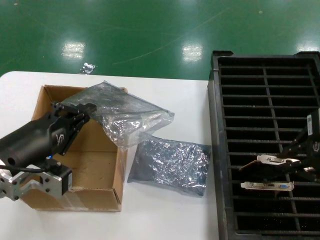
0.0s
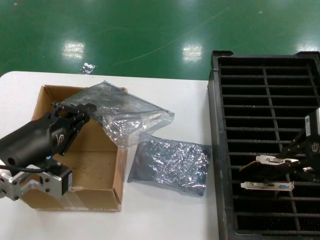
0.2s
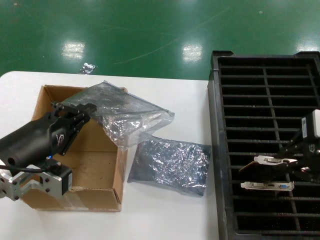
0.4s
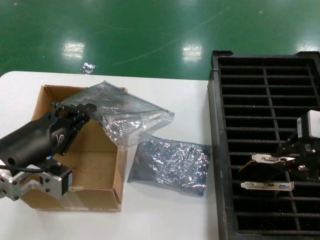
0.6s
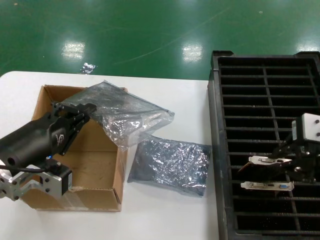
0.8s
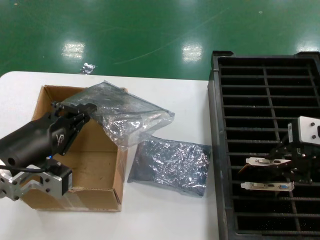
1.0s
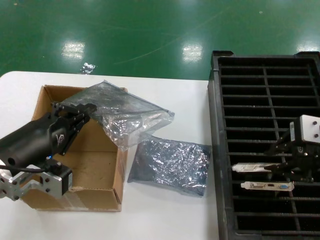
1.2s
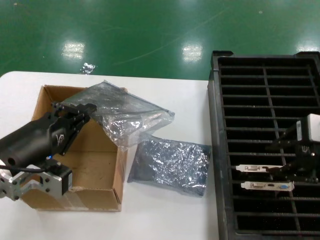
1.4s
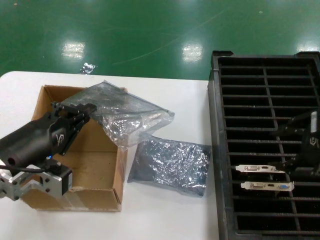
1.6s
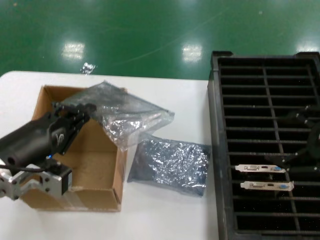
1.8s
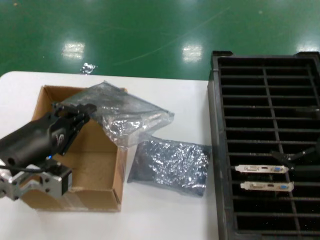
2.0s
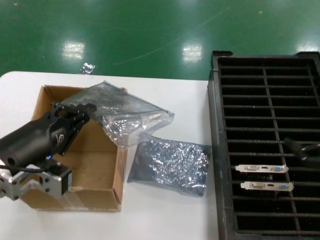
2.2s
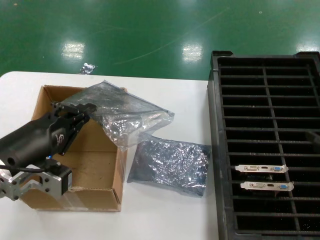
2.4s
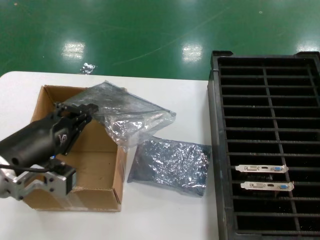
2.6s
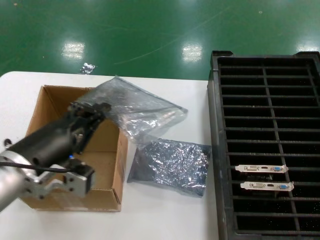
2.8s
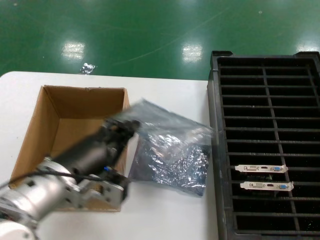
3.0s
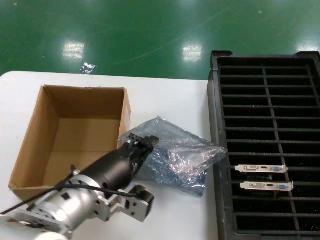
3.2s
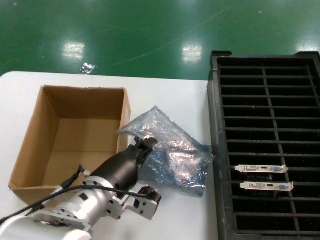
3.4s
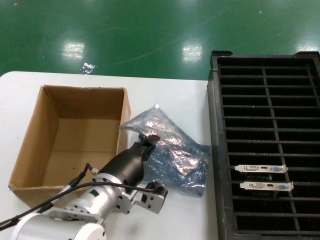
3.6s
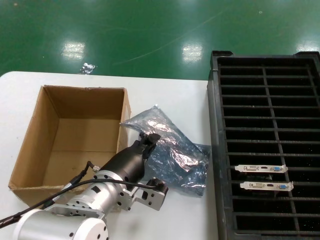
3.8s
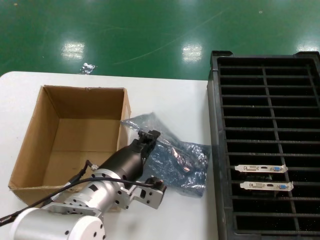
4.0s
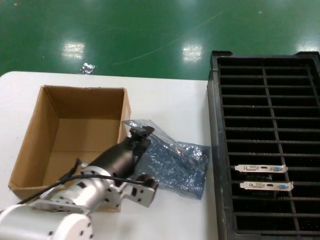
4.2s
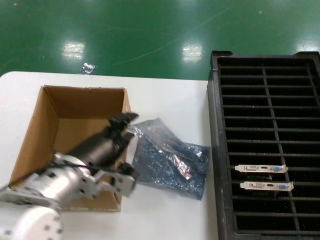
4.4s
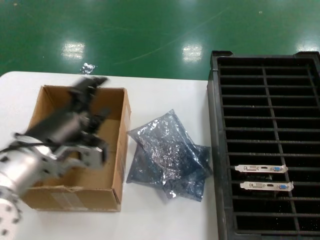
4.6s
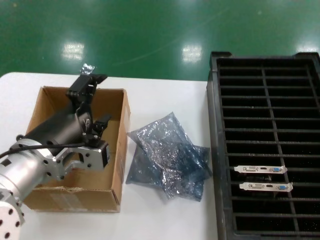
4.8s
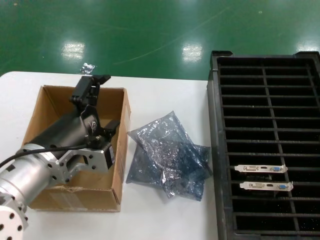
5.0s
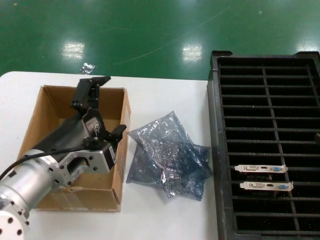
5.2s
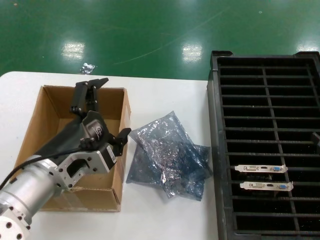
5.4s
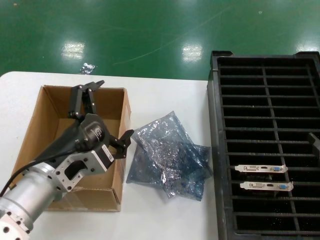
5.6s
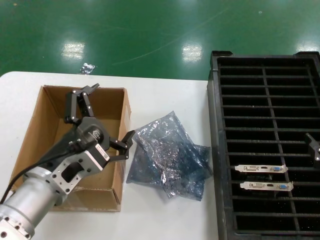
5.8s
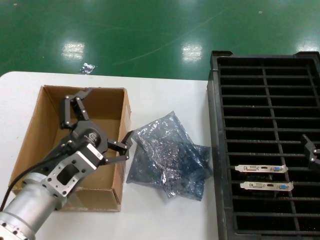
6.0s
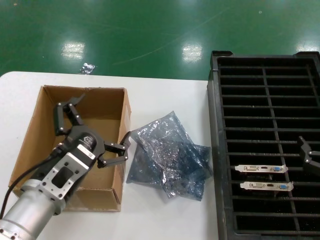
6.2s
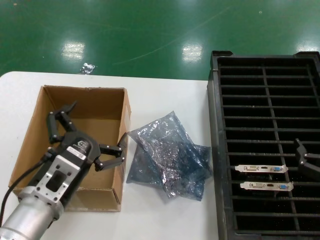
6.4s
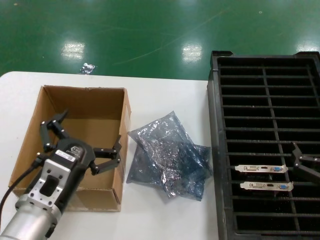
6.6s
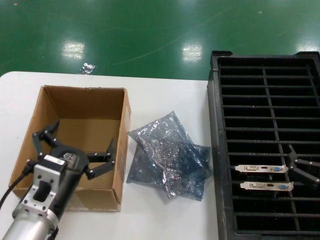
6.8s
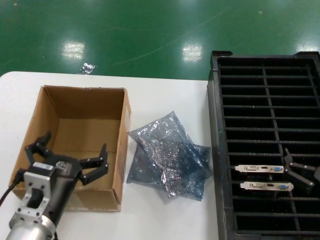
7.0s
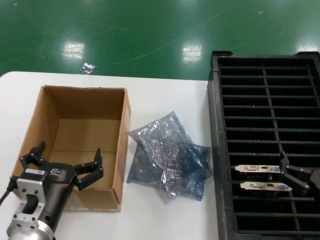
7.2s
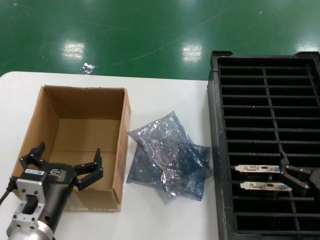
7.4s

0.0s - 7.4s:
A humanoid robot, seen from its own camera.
Task of the whole recording: take out graphics card from box remove packaging put into black container.
Step, 1.4s - 4.2s: Place the down the bag.
0.0s - 1.4s: There are only small adjustments of the hands.
1.4s - 3.0s: The left hand heads to the right, covering roughly 5 cm. Meanwhile the right hand heads to the right, backward and downward, covering some 20 cm.
4.4s - 6.0s: The left hand shifts by some 5 cm, while the right hand travels downward and to the left by about 10 cm.
6.0s - 7.4s: The right hand heads to the left and downward, covering some 10 cm; the left hand heads downward, covering about 10 cm.
